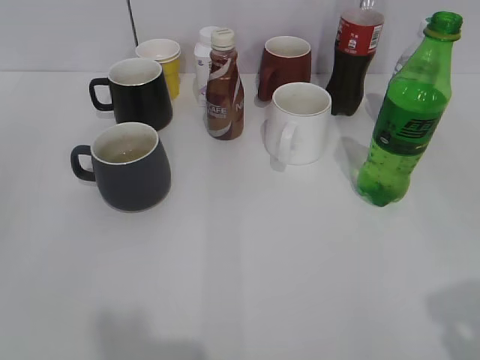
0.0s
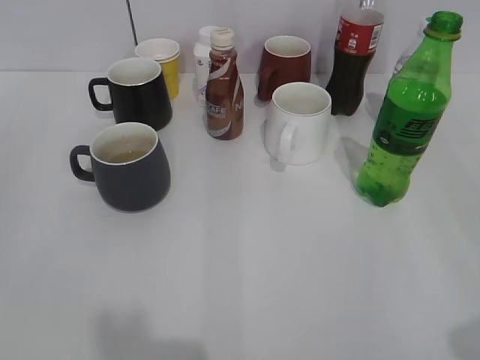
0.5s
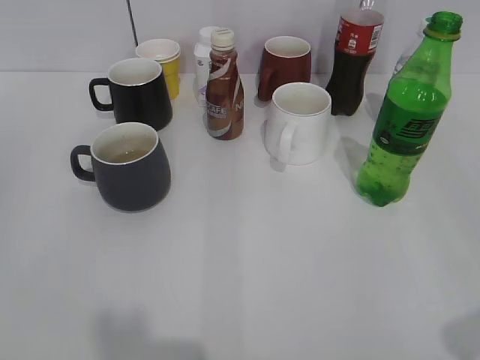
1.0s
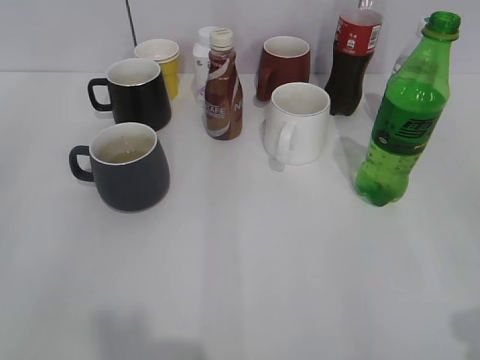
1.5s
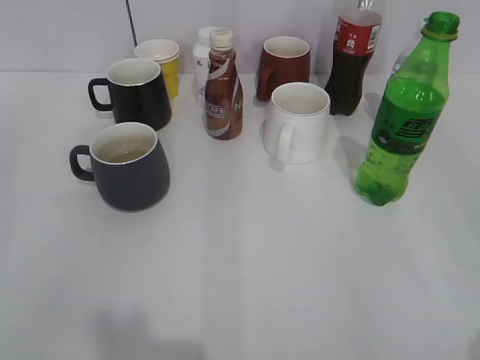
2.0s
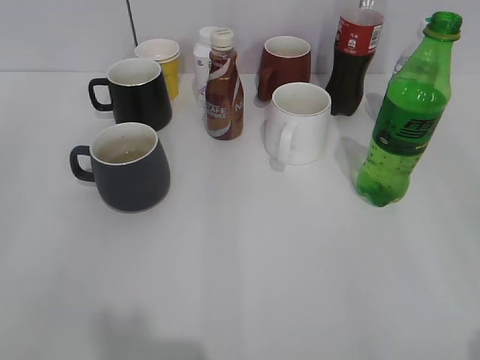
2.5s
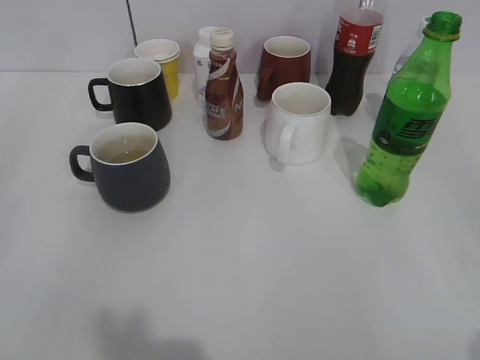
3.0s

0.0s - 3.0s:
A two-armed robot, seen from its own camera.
0.0s - 1.5s: The grippers move only a little.

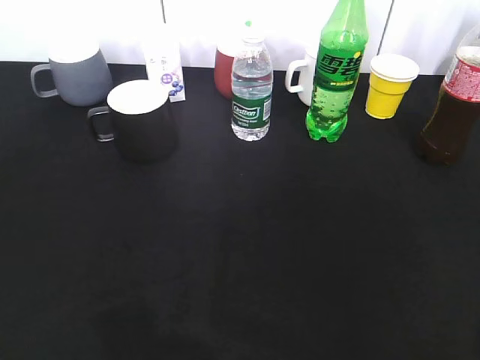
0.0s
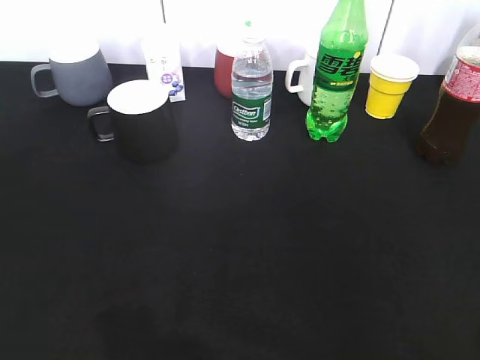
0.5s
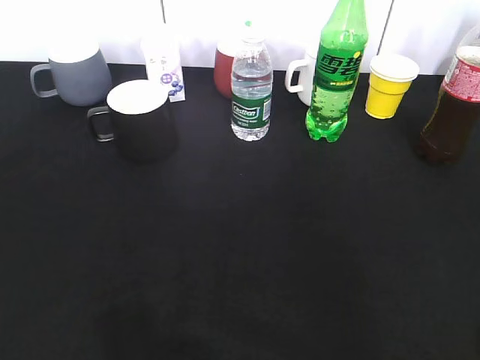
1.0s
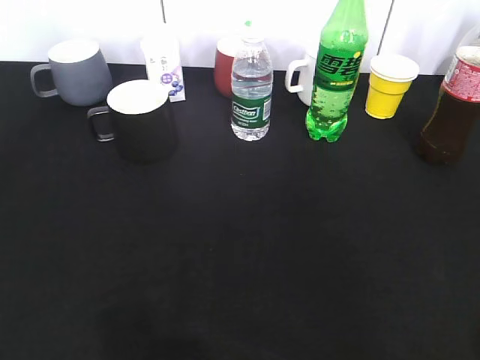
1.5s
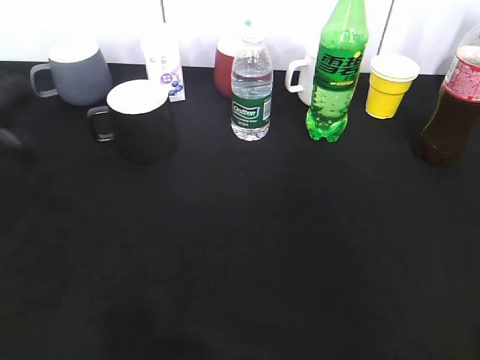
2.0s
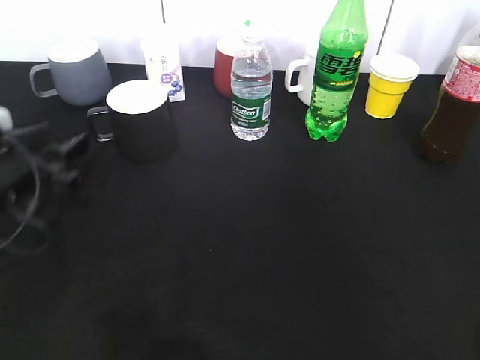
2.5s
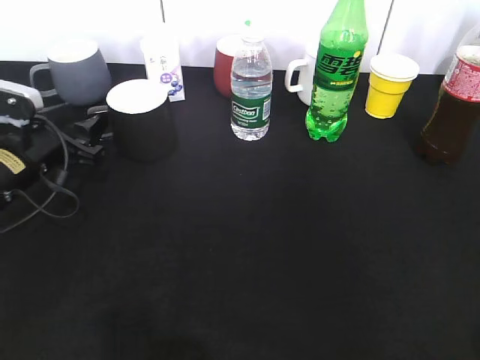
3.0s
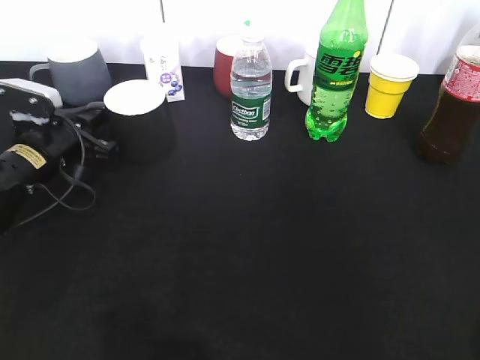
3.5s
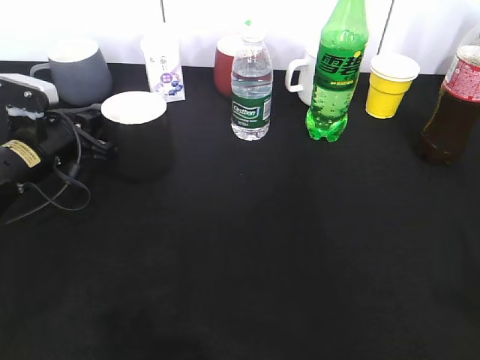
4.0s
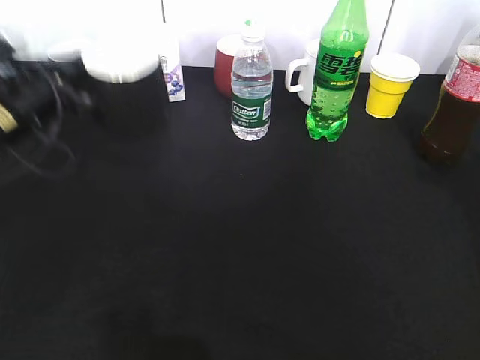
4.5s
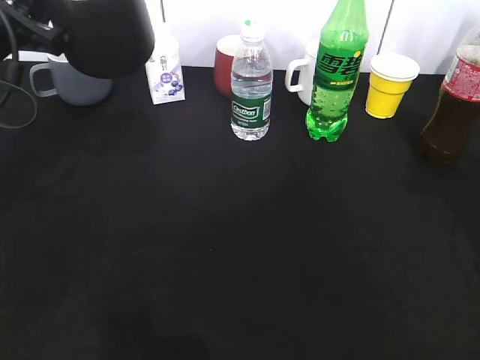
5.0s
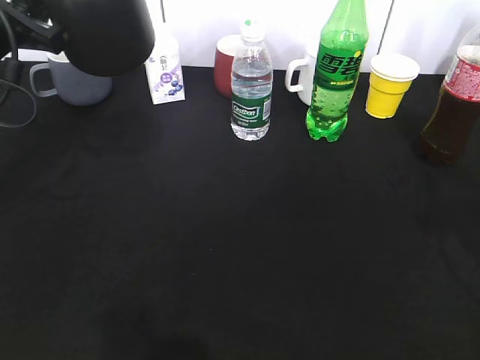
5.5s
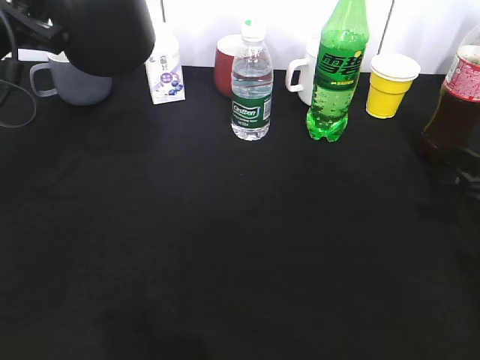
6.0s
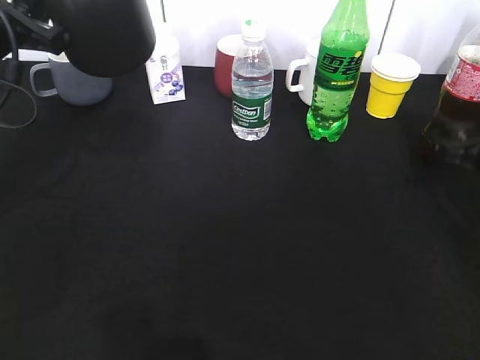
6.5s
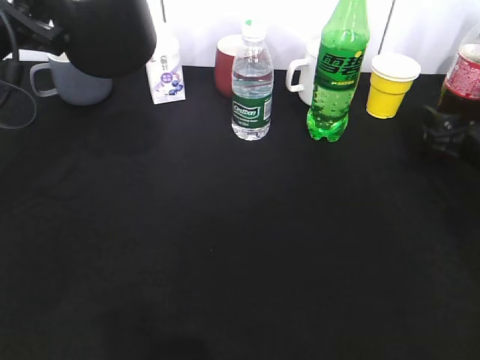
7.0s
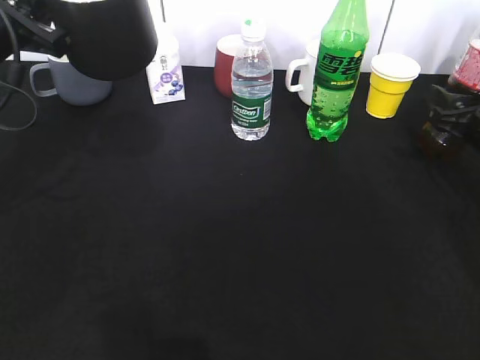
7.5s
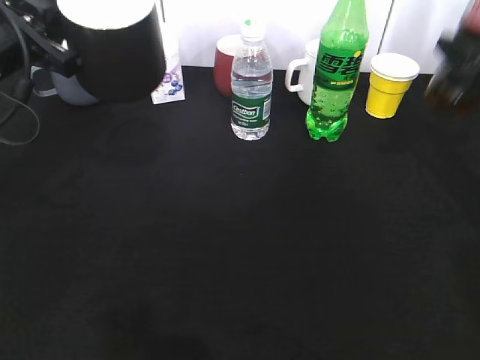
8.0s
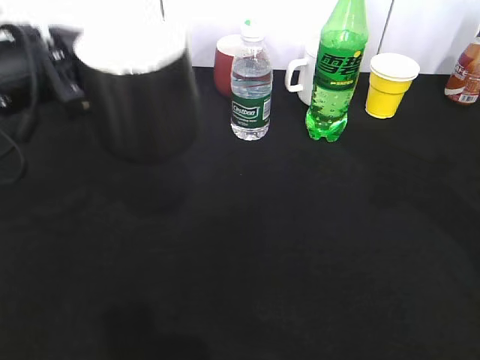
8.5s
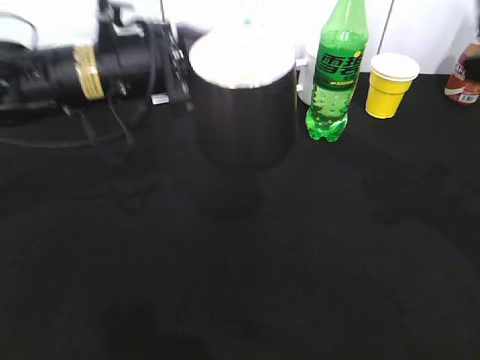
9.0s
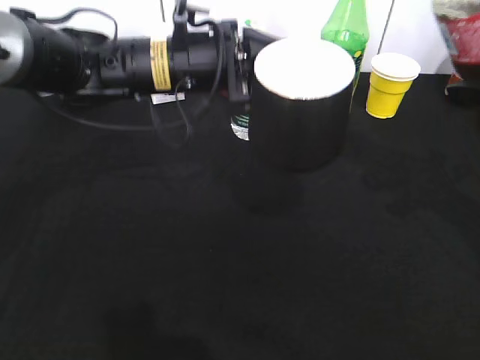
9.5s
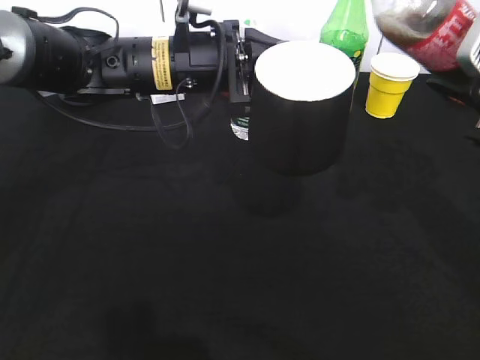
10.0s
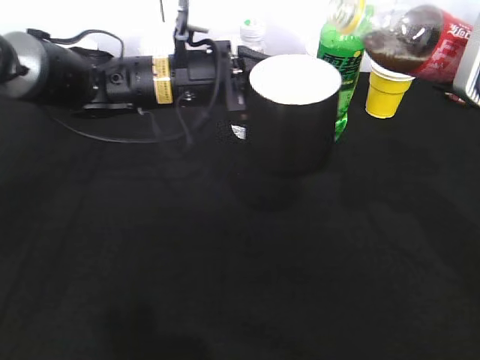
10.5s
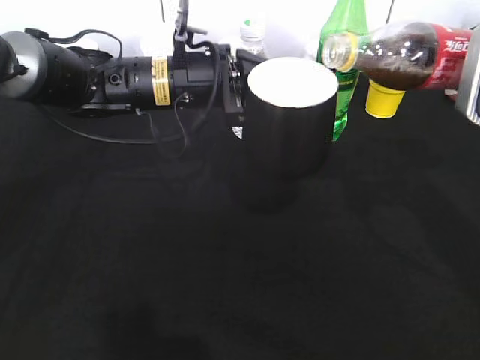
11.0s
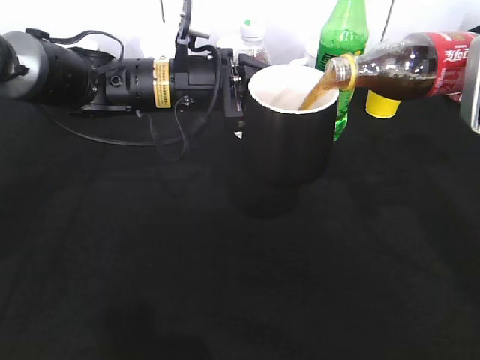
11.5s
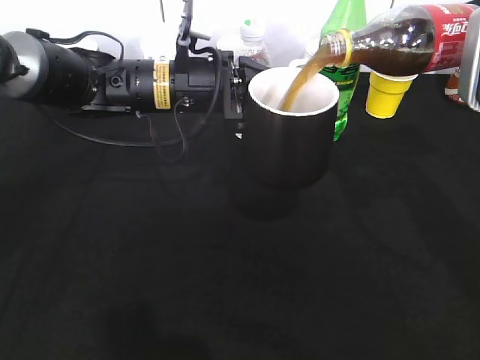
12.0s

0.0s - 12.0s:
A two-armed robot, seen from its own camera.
Step, 0.0s - 3.5s: Grasp the black cup with left gripper.
Step, 4.0s - 5.0s: Lift the black cup with left gripper.
Step, 5.5s - 7.5s: Grasp the bottle with cola with right gripper.
2.0s - 4.0s: The left gripper is displaced forward and downward by approximately 15 cm, and closes its fingers.
4.0s - 6.0s: The left gripper moves upward, approximately 15 cm.
6.0s - 8.0s: The right gripper travels forward and upward by approximately 10 cm.
8.0s - 10.0s: The left gripper shifts approximately 20 cm to the right. The right gripper heads backward, upward and to the left, covering roughly 10 cm.

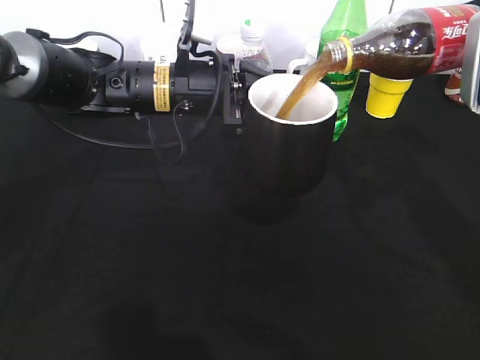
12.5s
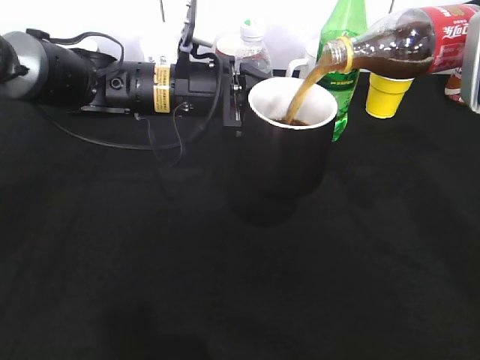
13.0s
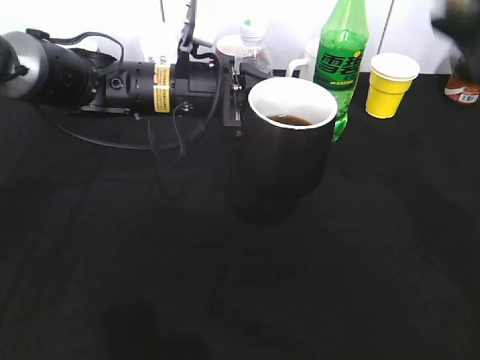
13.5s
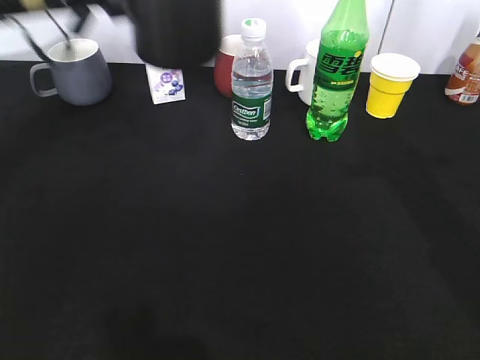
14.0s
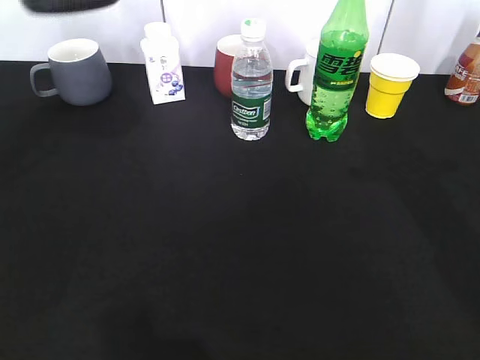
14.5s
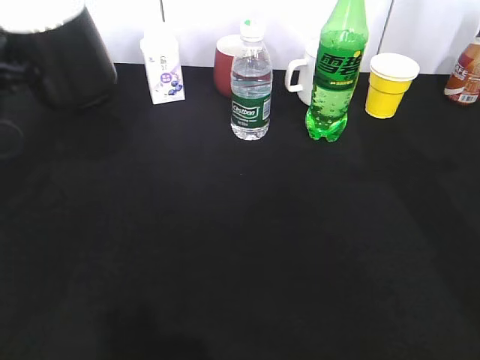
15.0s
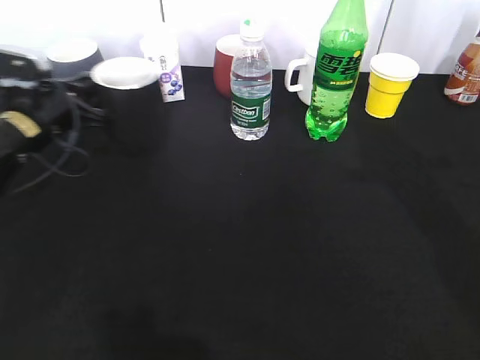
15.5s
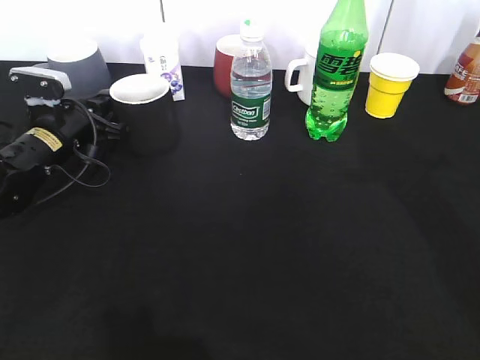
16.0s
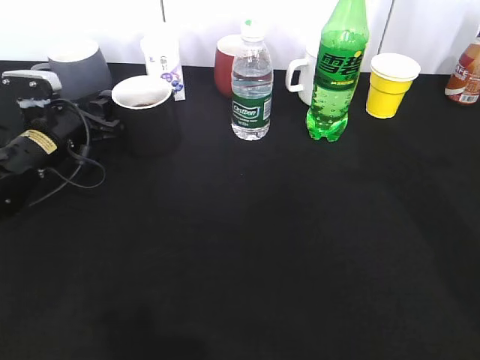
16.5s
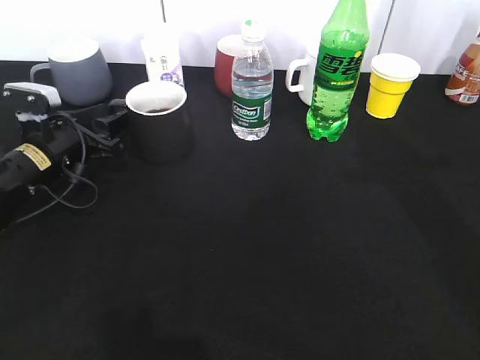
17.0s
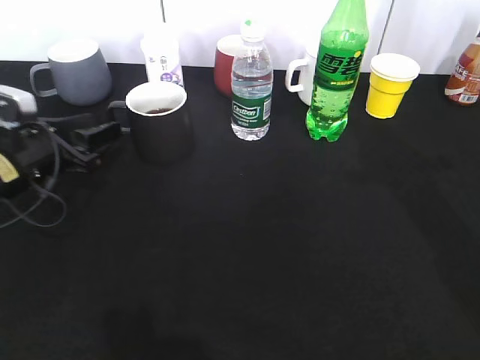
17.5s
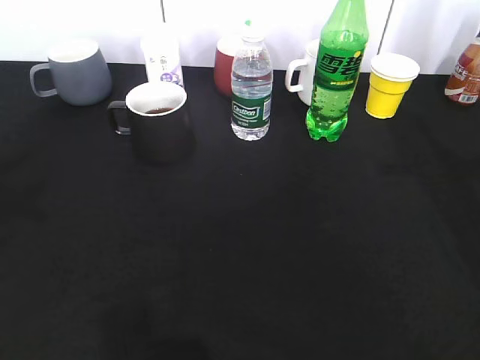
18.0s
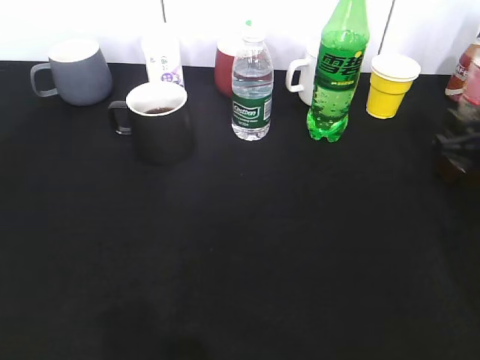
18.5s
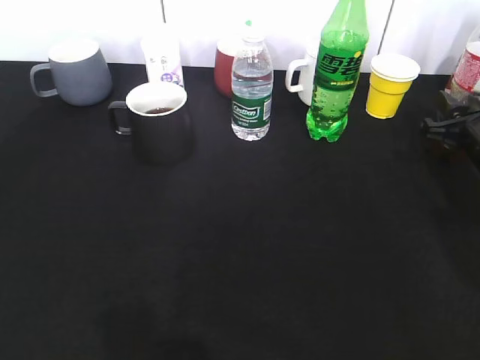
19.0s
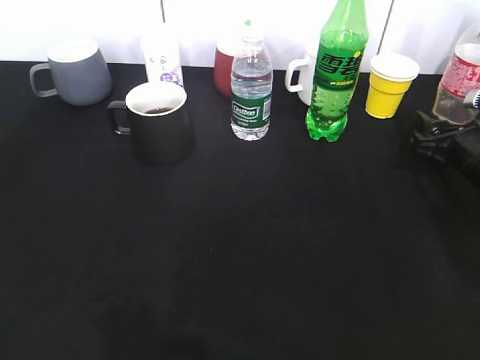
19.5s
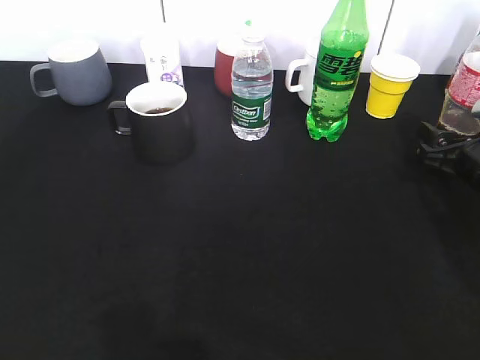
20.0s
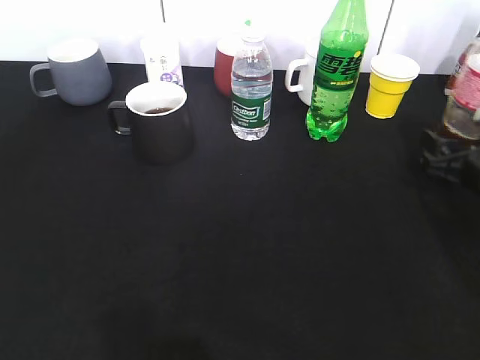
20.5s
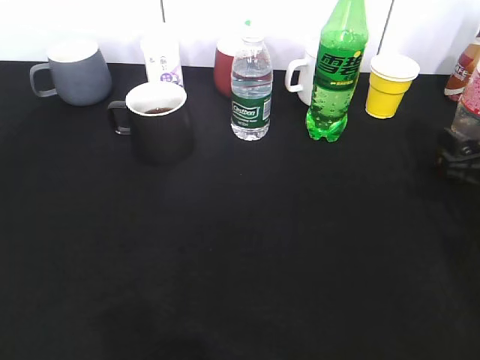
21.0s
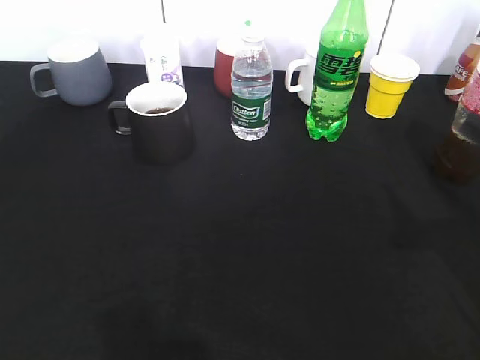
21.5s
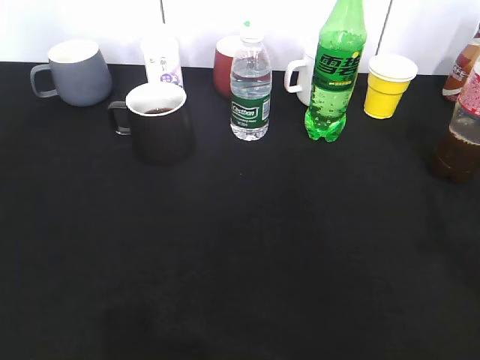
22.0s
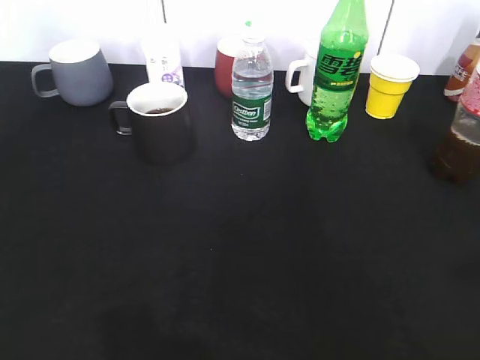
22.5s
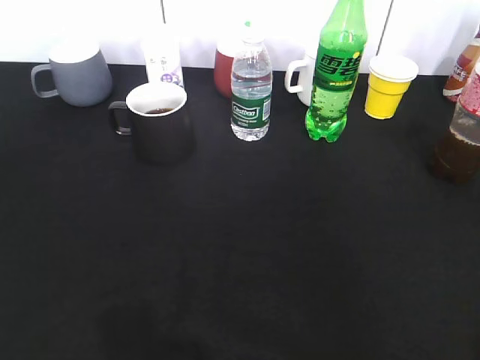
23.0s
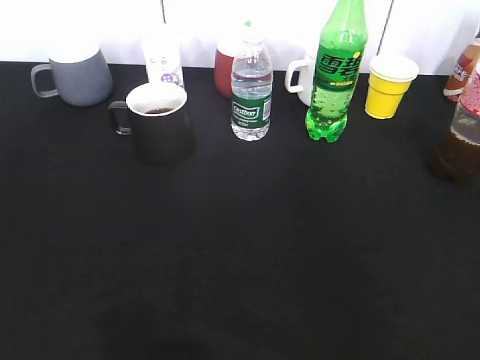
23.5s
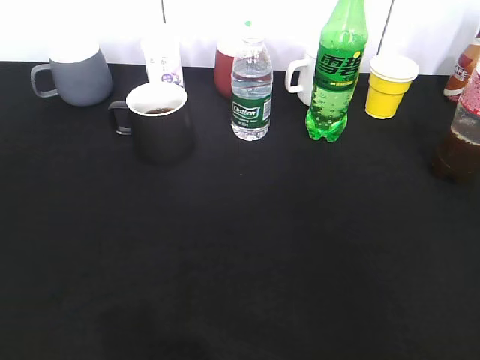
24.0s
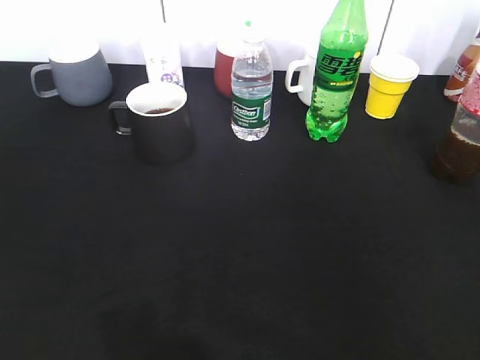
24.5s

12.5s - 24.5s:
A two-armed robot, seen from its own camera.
Step, 13.5s - 17.5s: Place the white cup on the table with left gripper.
Step, 18.0s - 21.5s: Place the cola bottle on the table with right gripper.
12.5s - 14.5s: The left gripper goes approximately 25 cm to the left and upward, while the right gripper is displaced upward and backward by about 10 cm.
14.5s - 16.5s: The left gripper is displaced downward by some 25 cm, and opens its fingers.
16.5s - 18.5s: The left gripper goes some 35 cm backward and upward, while the right gripper goes roughly 25 cm downward and forward.
18.5s - 20.5s: The right gripper opens its fingers.
20.5s - 22.5s: The left gripper moves upward and backward, about 15 cm, and closes up. The right gripper is displaced upward and backward by some 35 cm, and closes its fingers.
